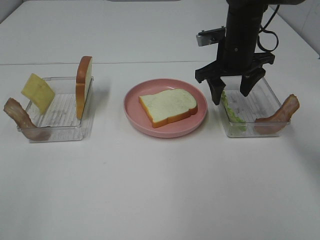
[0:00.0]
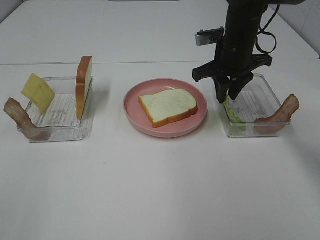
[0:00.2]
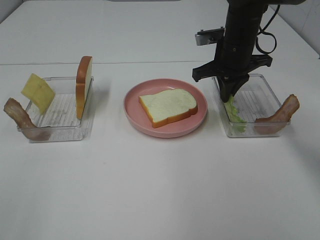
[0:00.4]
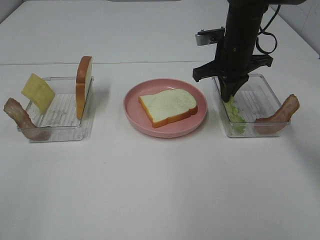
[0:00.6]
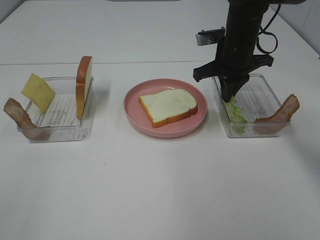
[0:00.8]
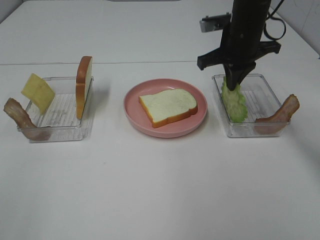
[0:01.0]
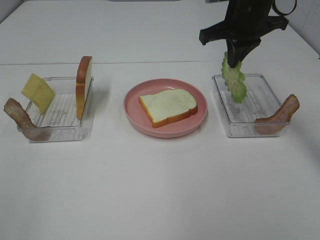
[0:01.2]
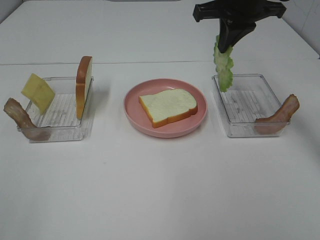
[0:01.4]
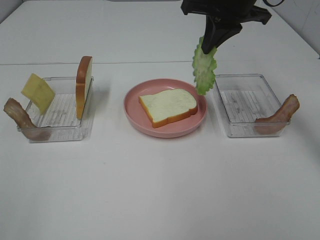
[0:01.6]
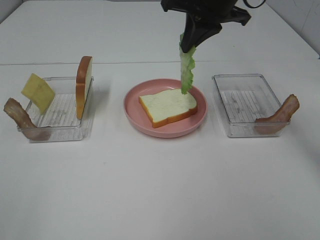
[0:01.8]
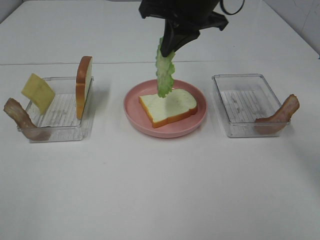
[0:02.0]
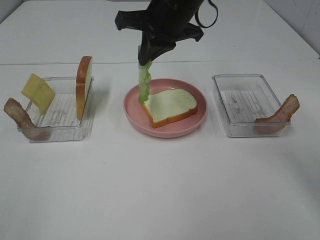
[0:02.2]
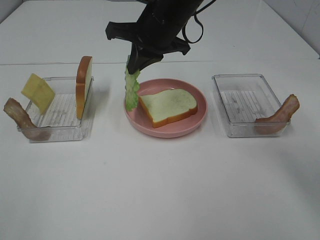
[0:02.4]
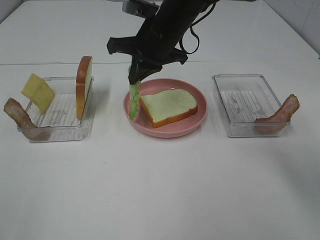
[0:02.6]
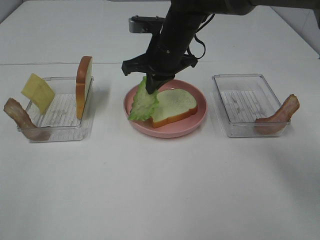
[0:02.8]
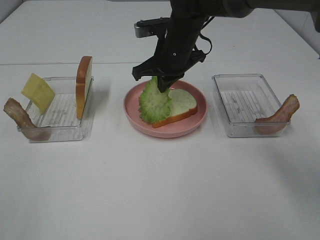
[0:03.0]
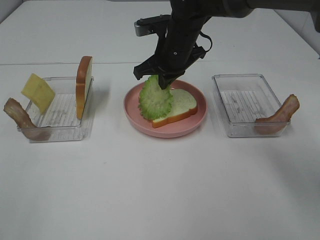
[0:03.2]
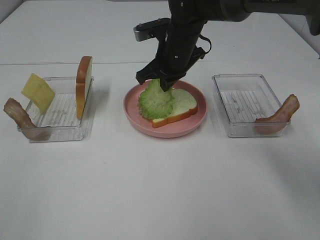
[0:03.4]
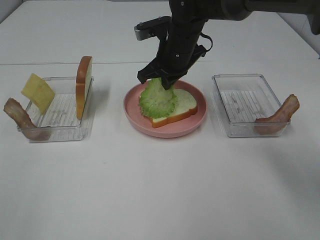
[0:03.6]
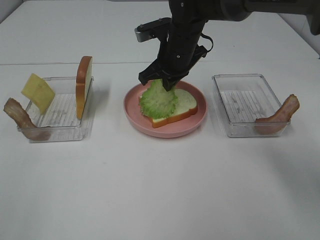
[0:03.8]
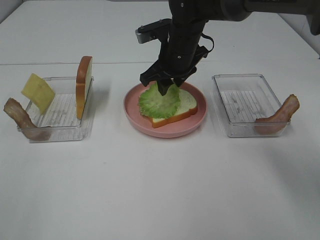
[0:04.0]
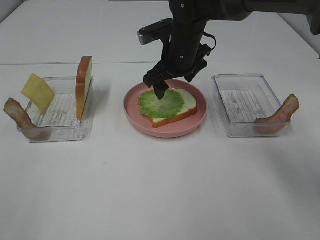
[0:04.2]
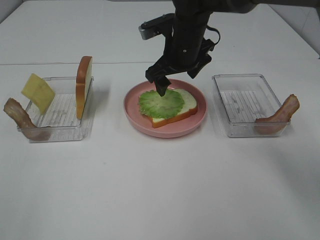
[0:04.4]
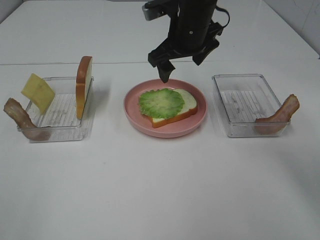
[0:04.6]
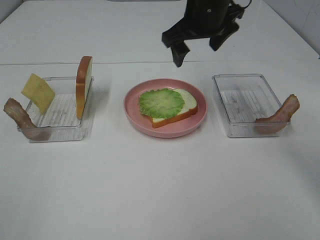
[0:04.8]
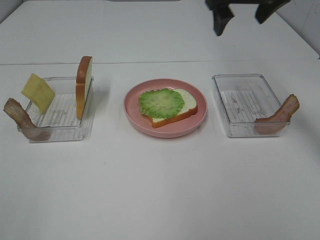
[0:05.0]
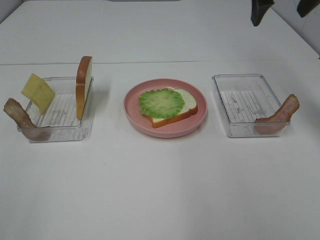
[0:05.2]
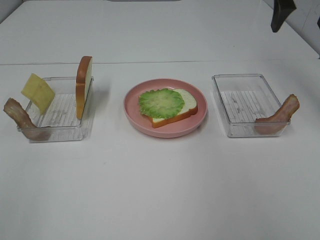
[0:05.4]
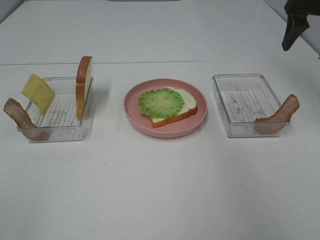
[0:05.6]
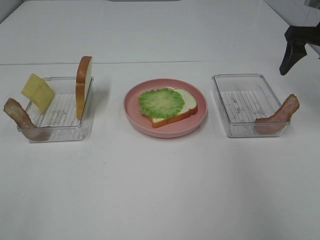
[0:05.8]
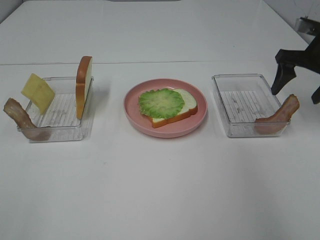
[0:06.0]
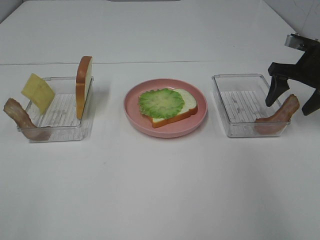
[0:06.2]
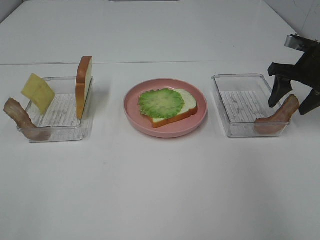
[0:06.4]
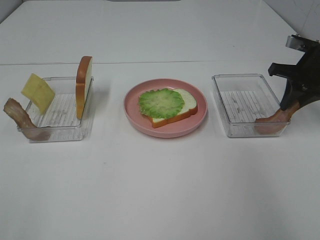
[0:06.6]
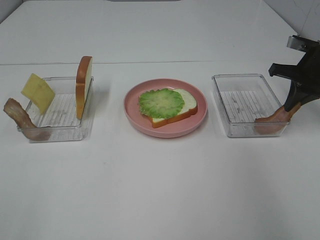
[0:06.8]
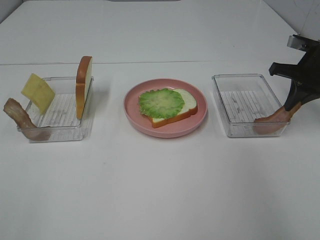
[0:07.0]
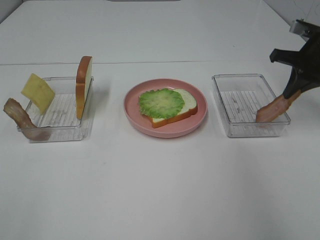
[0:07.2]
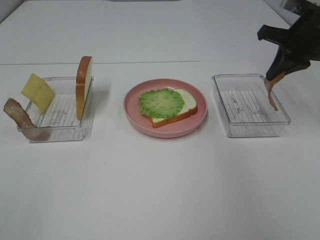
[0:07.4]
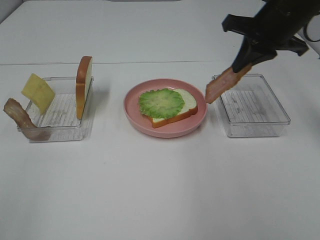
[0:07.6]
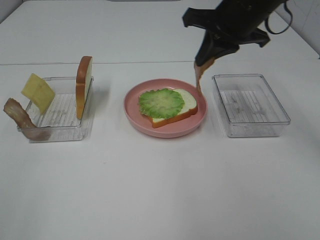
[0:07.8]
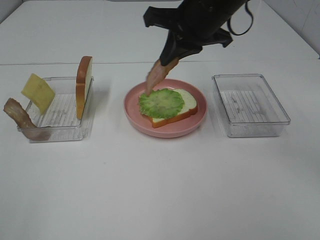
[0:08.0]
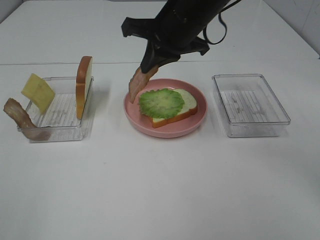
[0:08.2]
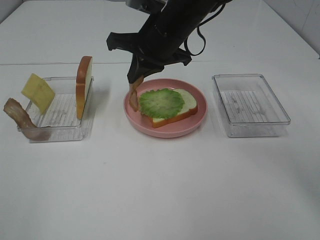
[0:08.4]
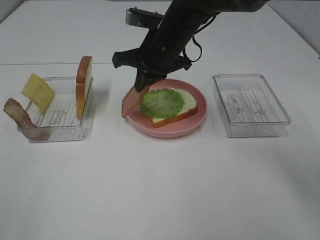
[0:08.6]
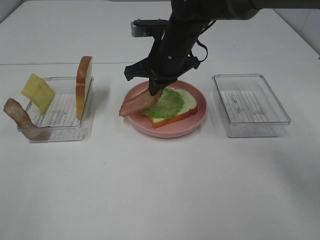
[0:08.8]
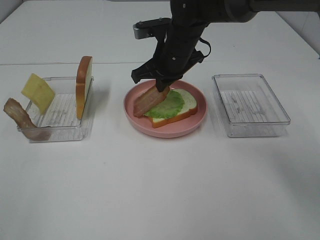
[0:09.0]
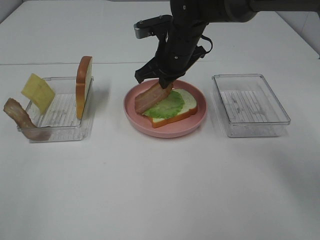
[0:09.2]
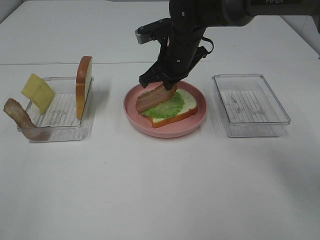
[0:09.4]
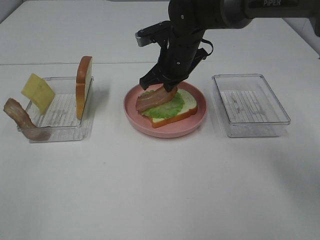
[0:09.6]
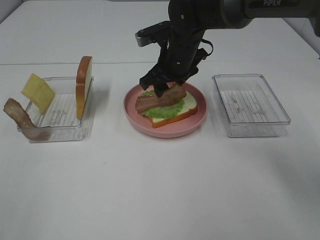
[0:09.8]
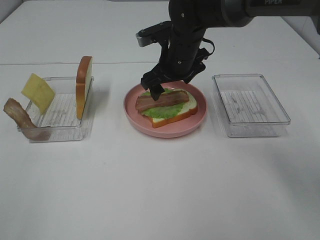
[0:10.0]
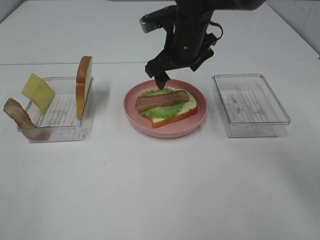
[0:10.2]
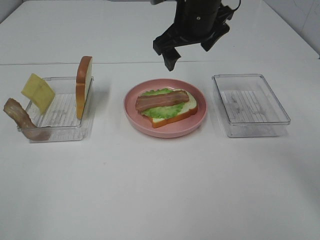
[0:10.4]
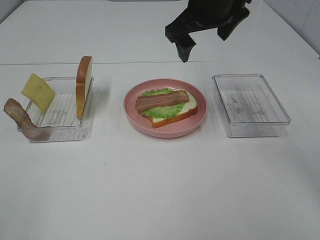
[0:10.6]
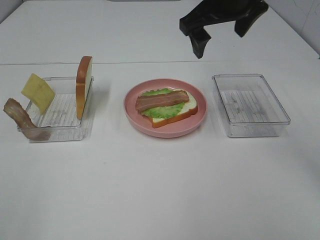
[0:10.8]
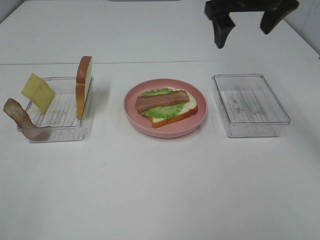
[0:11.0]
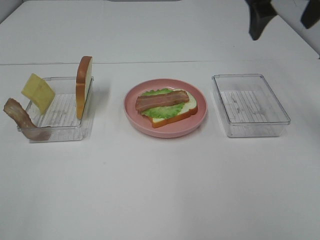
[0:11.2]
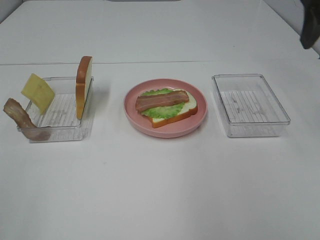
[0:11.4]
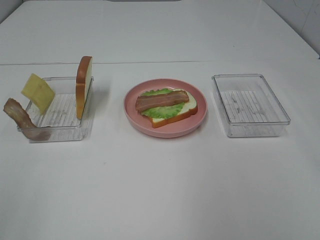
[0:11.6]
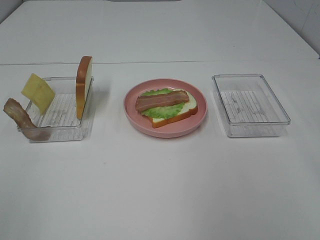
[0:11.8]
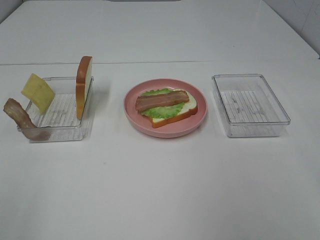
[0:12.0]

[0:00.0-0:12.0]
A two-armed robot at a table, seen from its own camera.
Task of the whole recording: Make sandwiches.
Step, 0:01.0 to 0:04.2: Right hand:place the lettuce slice on the bread slice.
Step, 0:04.4 to 0:06.8: Right hand:grab the bacon.
Step, 0:07.0 to 0:10.0: Right hand:place bacon on lettuce slice.
0:00.0 to 0:01.6: The right gripper moves upward, some 10 cm, and closes its fingers.
0:01.6 to 0:03.0: The right gripper moves downward and to the left, some 15 cm.
0:03.0 to 0:04.4: The right gripper opens.
0:04.4 to 0:06.0: The right gripper shifts about 25 cm to the right.
0:06.0 to 0:07.6: The right gripper goes some 15 cm to the left and upward, and closes up.
0:07.6 to 0:09.0: The right gripper moves to the left and downward, approximately 20 cm.
0:09.0 to 0:10.4: The right gripper heads upward, covering roughly 10 cm, and opens.
0:10.4 to 0:12.0: The right gripper heads backward and to the right, covering roughly 30 cm.

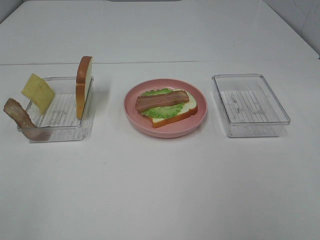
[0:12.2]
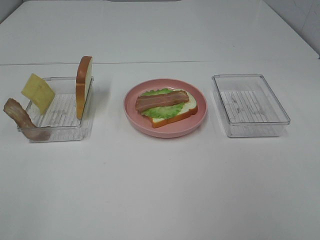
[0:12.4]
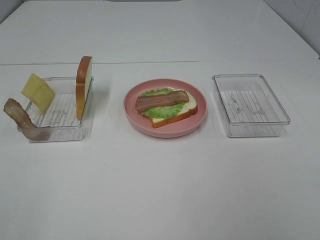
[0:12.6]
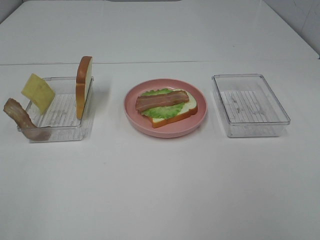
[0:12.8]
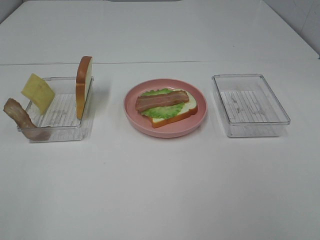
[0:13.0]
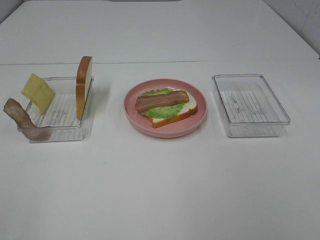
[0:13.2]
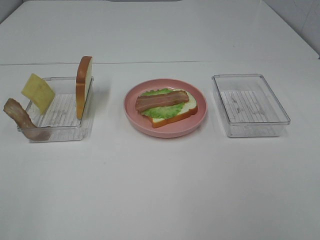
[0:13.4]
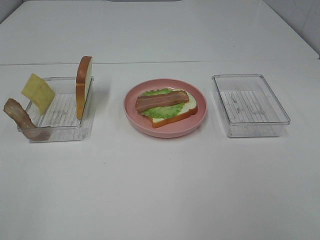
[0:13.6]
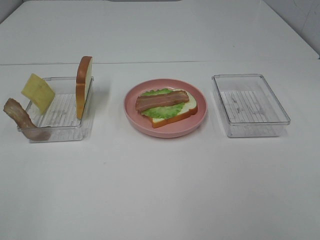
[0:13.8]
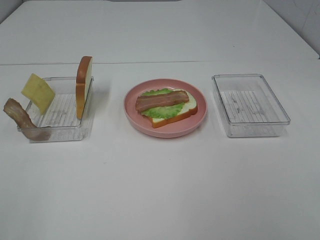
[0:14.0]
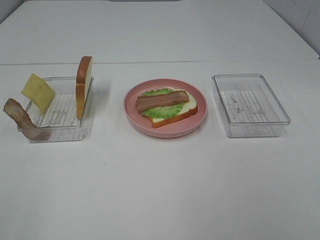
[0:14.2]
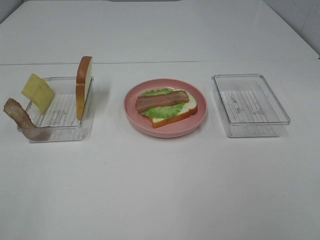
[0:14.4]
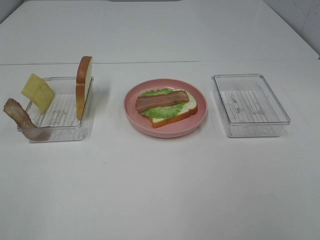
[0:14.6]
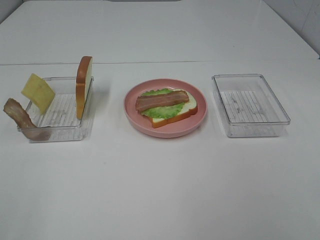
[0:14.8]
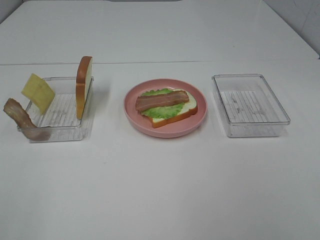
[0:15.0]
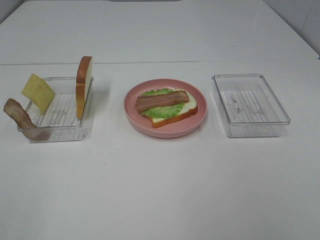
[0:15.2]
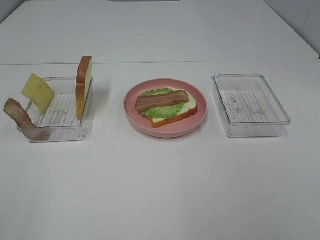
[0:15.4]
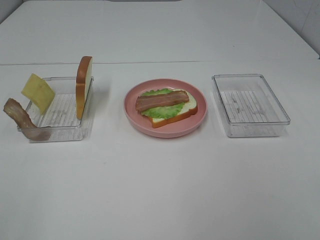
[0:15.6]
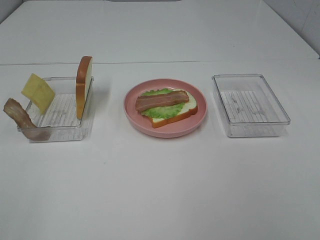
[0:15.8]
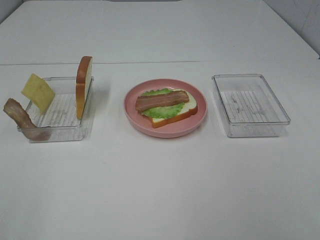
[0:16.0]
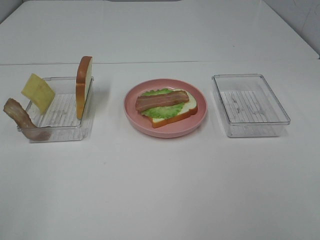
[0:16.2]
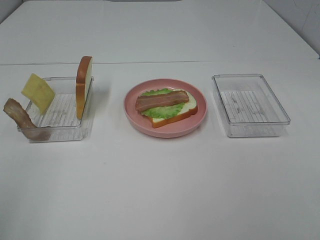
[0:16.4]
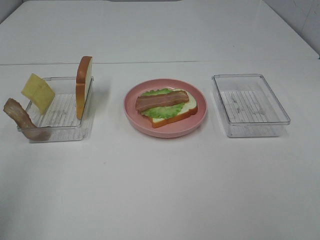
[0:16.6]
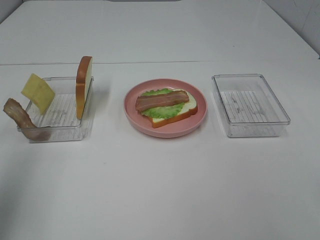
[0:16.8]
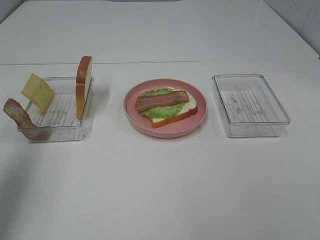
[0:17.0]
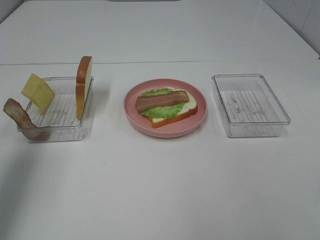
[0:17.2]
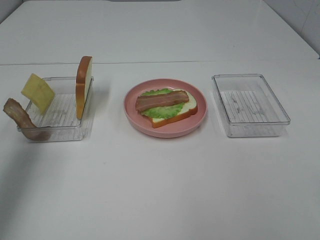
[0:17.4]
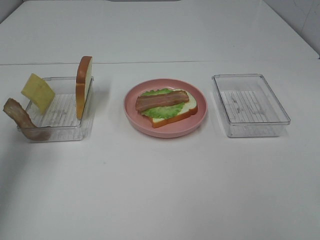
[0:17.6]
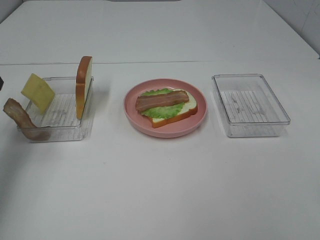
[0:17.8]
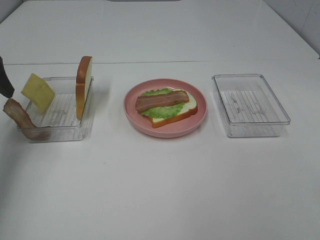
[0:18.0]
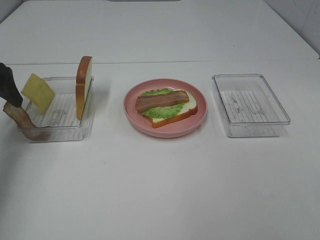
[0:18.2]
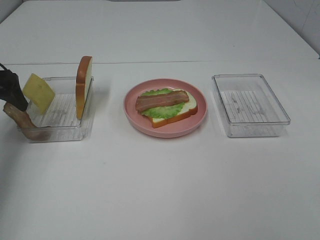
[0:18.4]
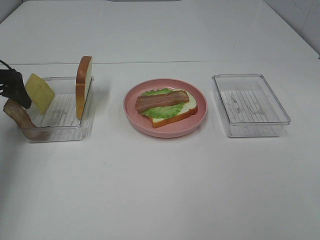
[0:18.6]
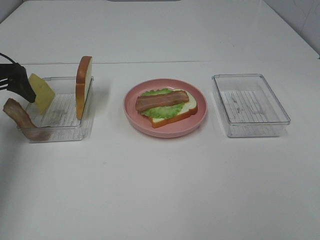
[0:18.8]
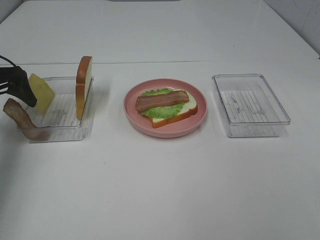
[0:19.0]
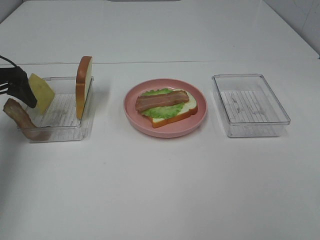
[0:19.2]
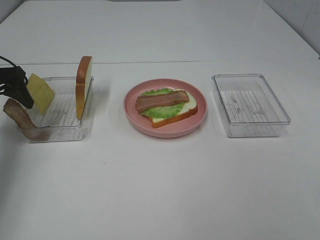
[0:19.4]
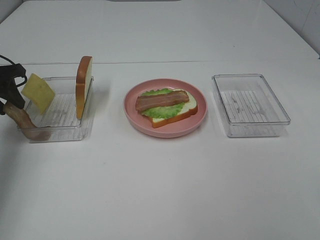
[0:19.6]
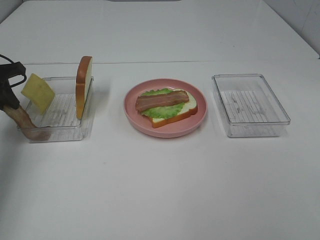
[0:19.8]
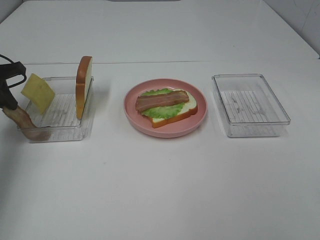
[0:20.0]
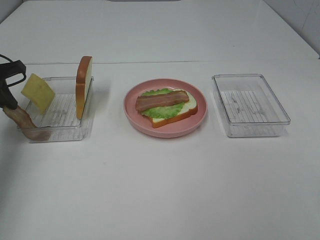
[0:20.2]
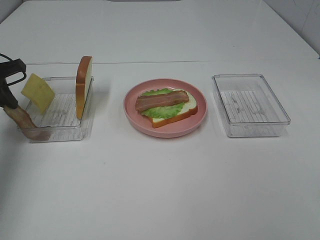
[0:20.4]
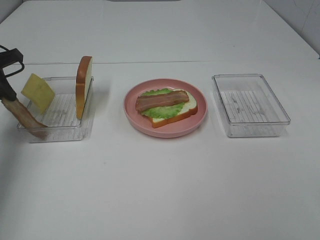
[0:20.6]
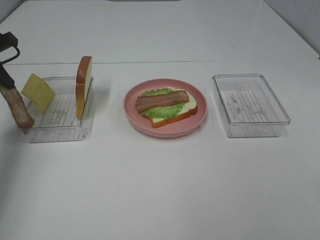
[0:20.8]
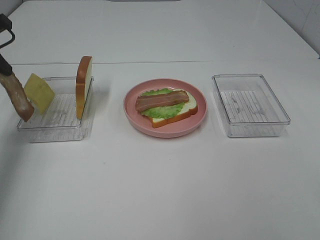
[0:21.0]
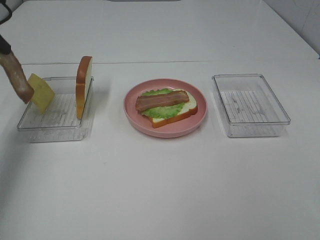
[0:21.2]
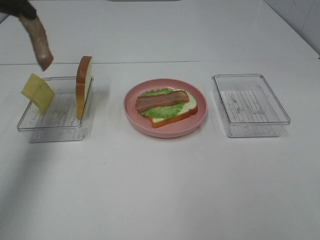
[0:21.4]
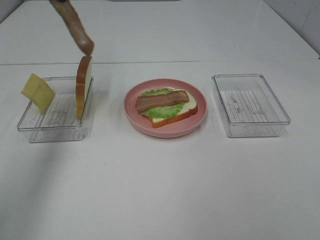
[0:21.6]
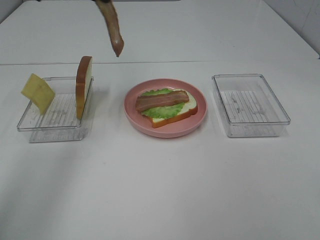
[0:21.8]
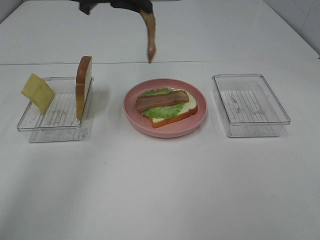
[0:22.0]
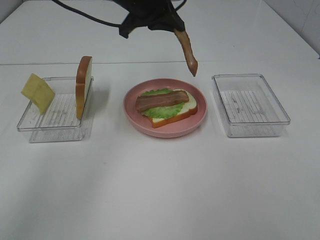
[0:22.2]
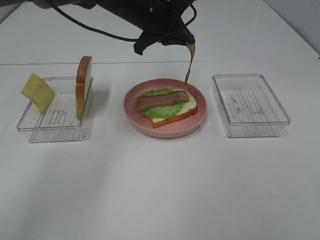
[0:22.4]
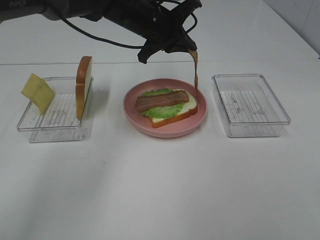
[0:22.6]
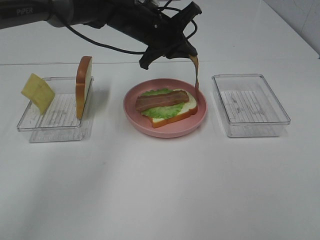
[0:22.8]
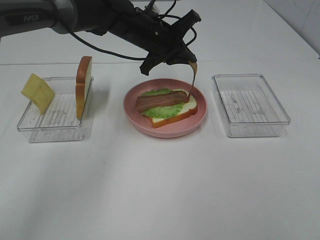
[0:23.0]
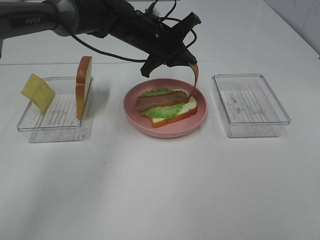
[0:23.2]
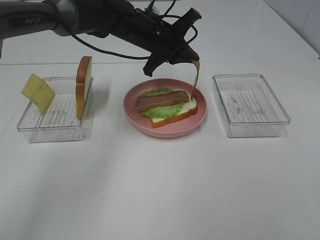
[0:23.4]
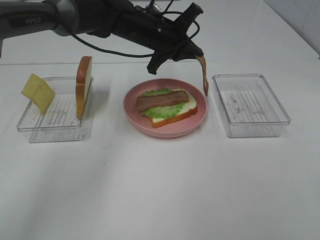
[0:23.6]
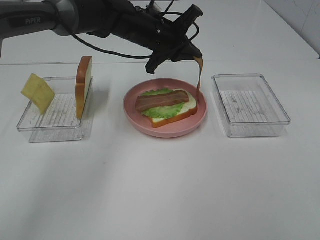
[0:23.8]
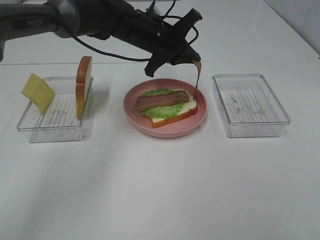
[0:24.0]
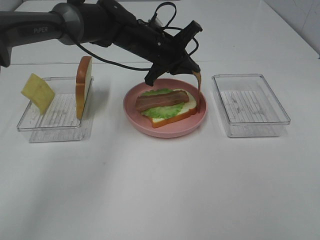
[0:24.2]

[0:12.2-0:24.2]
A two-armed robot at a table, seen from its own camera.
Task of the whole recording: Make sandwiches.
Step, 0:12.2 to 0:20.0: Left hand:grab the bacon.
0:13.8 to 0:15.2: Both grippers stay put.
0:16.6 to 0:18.2: The left gripper shifts approximately 30 cm forward and downward.
0:18.2 to 0:19.8: The left gripper closes its fingers.
0:19.8 to 0:21.2: The left gripper travels upward by some 15 cm.
0:21.2 to 0:22.6: The left gripper travels to the right by roughly 30 cm.
0:22.6 to 0:24.2: The left gripper ends up approximately 5 cm from where it was.
